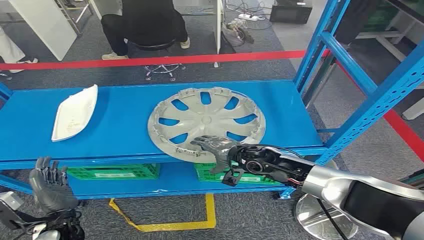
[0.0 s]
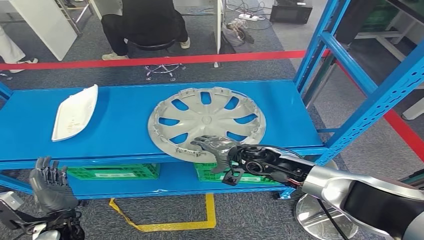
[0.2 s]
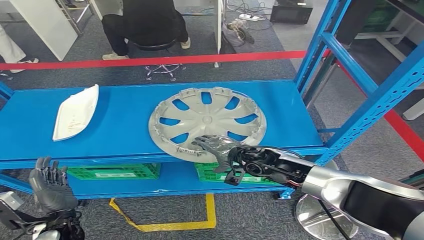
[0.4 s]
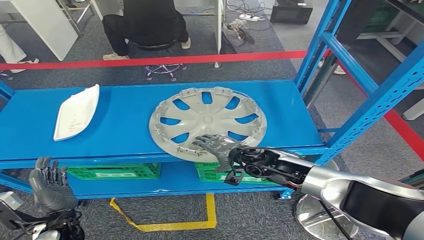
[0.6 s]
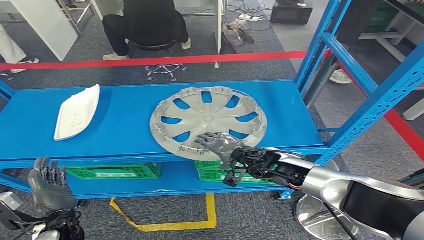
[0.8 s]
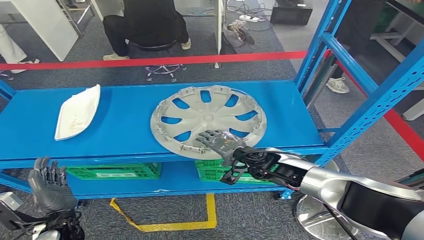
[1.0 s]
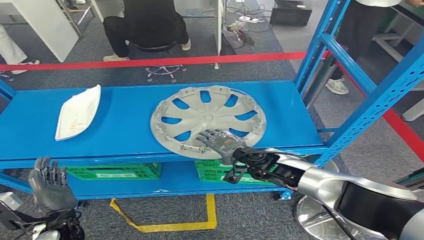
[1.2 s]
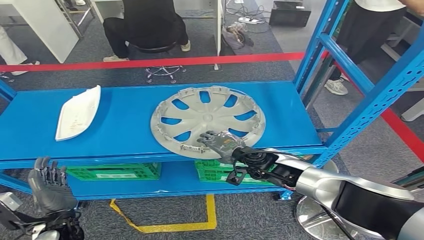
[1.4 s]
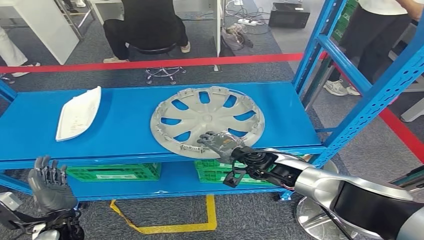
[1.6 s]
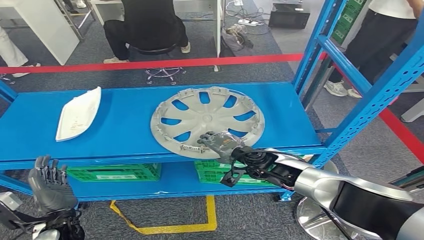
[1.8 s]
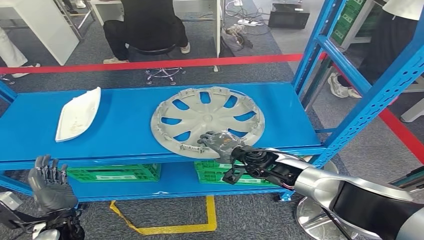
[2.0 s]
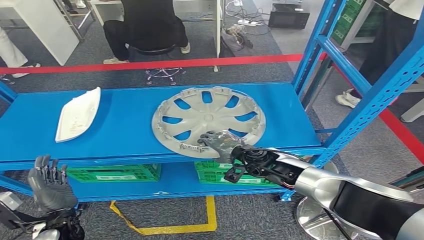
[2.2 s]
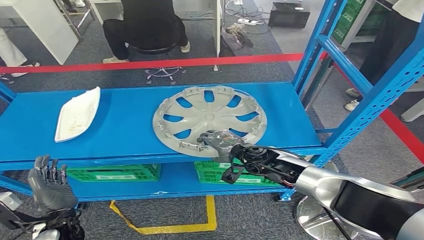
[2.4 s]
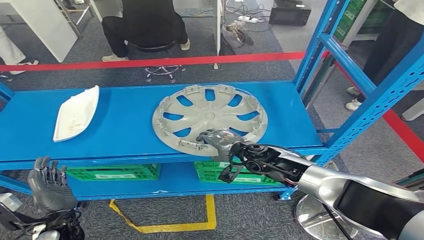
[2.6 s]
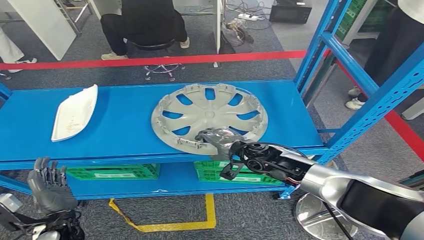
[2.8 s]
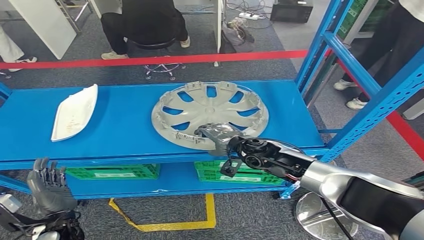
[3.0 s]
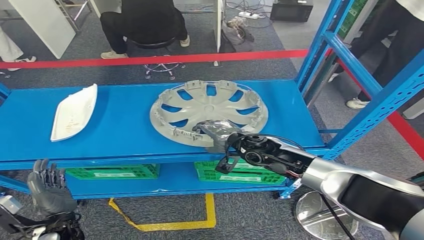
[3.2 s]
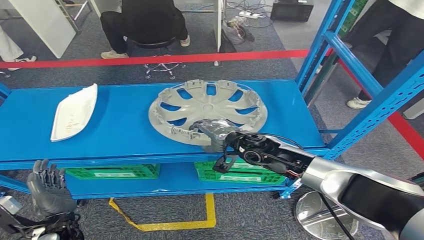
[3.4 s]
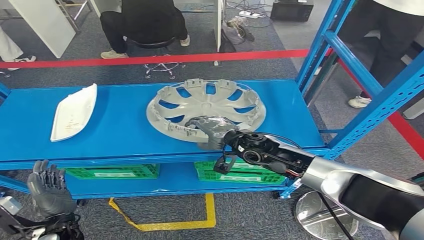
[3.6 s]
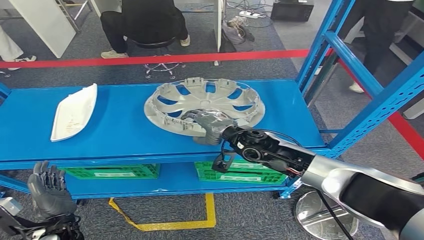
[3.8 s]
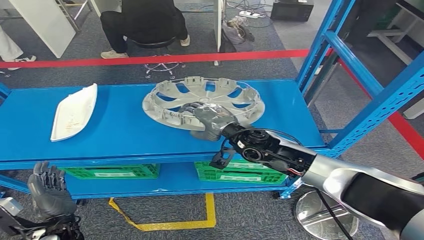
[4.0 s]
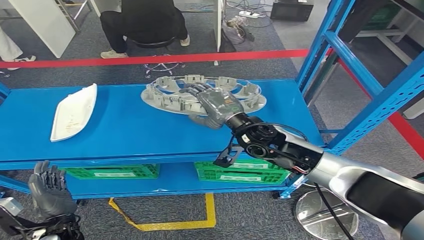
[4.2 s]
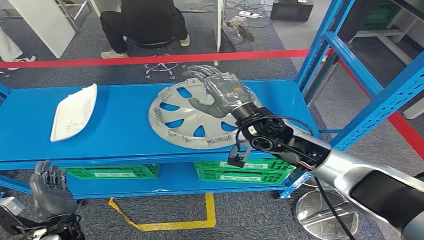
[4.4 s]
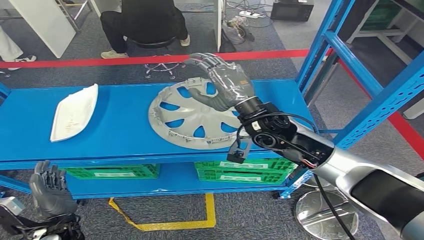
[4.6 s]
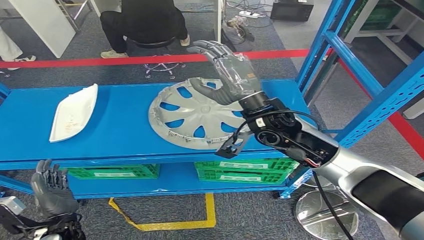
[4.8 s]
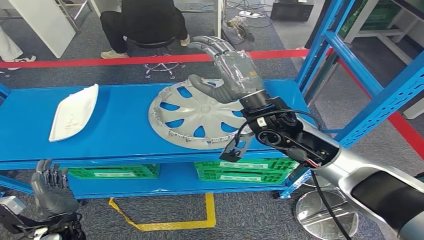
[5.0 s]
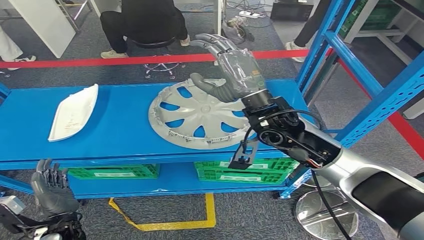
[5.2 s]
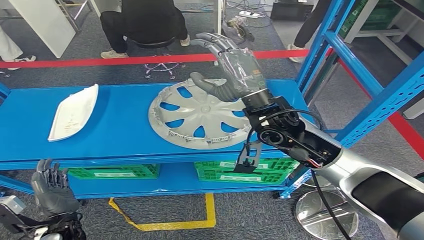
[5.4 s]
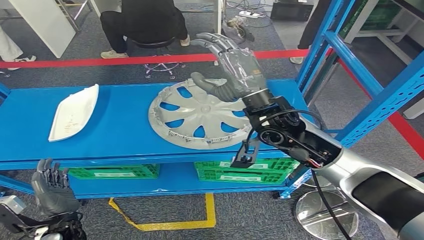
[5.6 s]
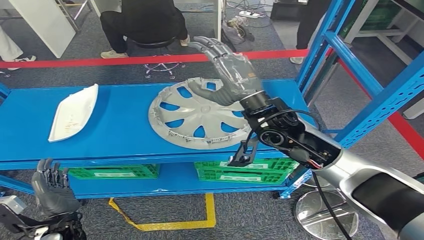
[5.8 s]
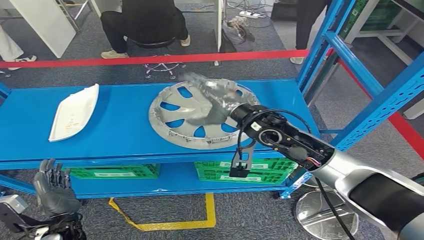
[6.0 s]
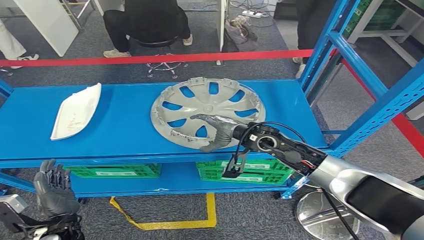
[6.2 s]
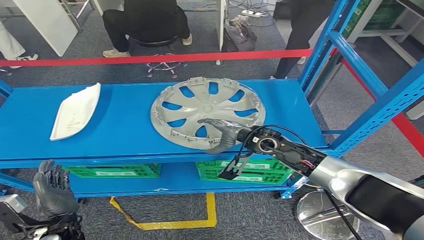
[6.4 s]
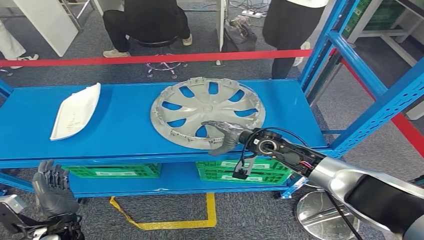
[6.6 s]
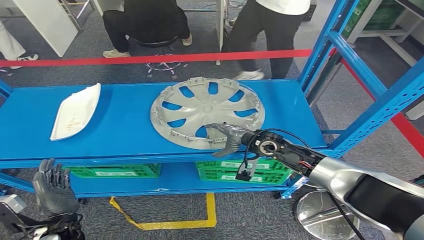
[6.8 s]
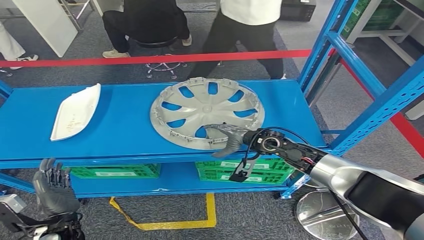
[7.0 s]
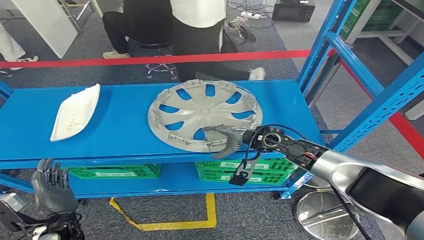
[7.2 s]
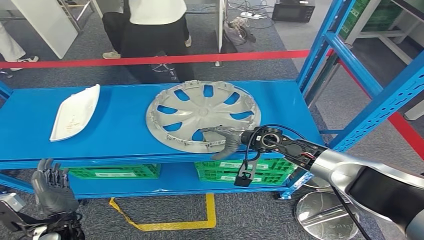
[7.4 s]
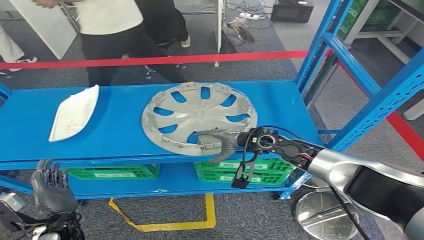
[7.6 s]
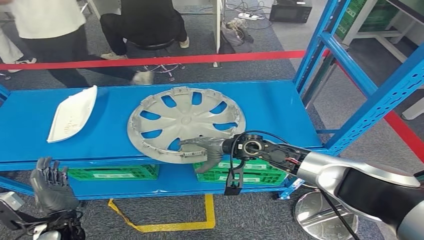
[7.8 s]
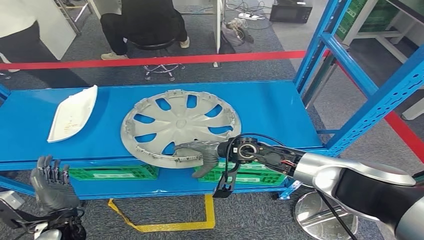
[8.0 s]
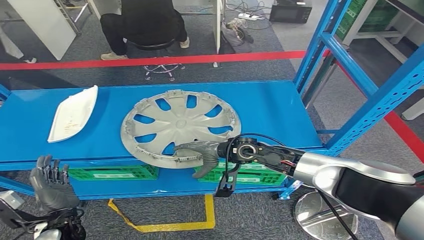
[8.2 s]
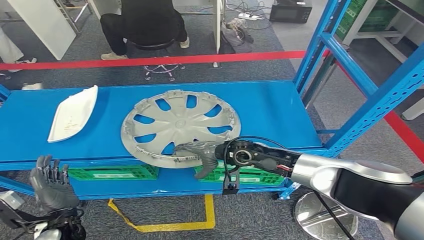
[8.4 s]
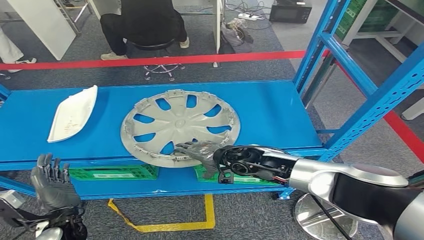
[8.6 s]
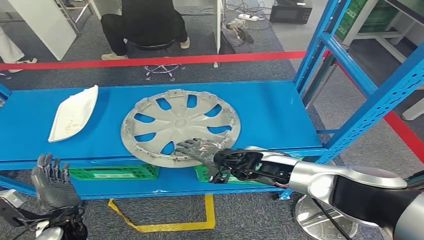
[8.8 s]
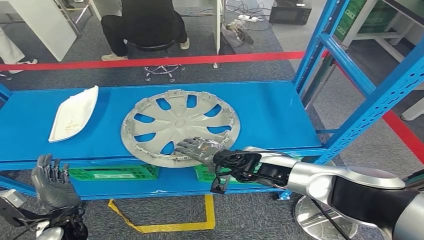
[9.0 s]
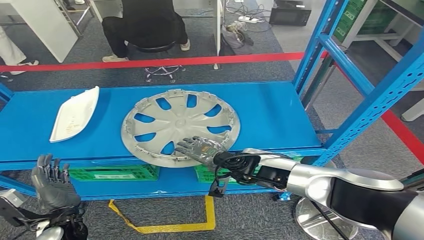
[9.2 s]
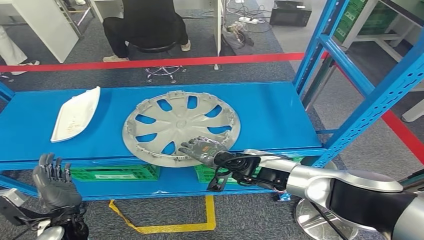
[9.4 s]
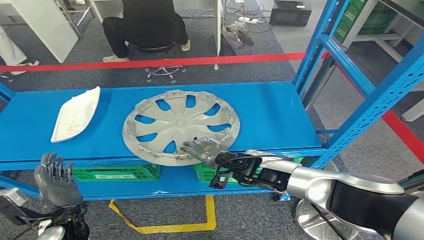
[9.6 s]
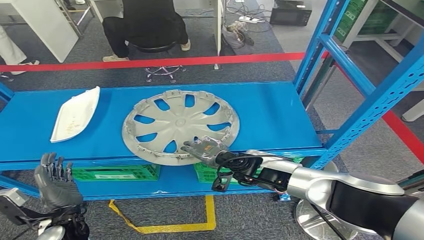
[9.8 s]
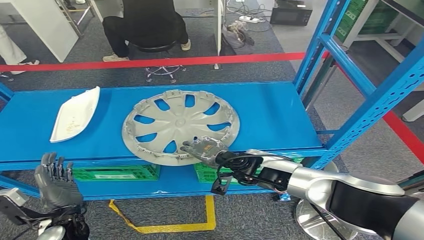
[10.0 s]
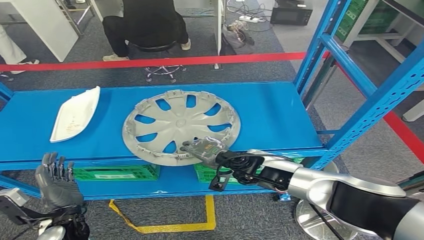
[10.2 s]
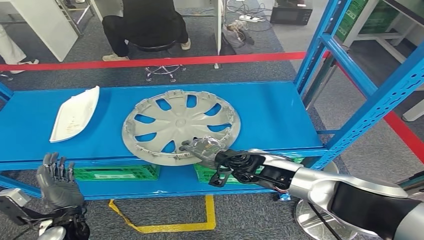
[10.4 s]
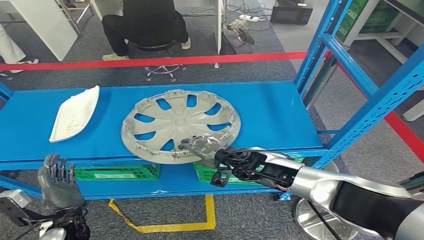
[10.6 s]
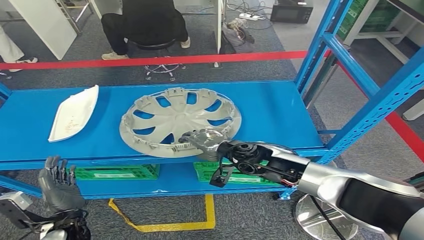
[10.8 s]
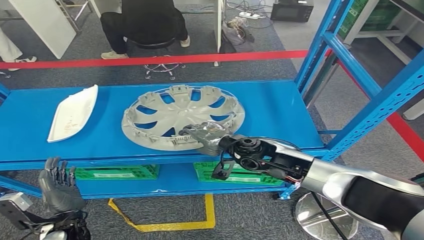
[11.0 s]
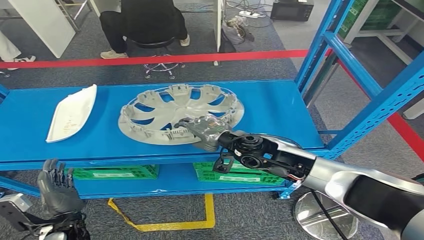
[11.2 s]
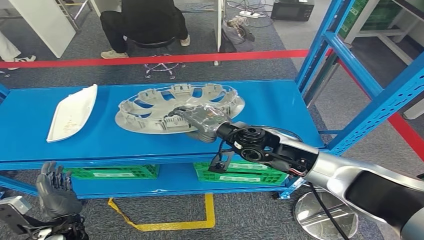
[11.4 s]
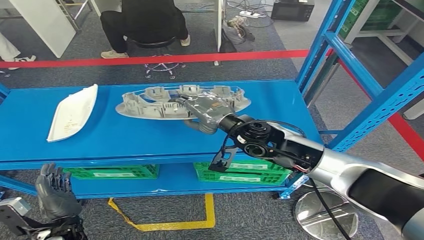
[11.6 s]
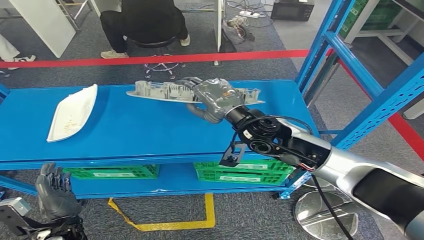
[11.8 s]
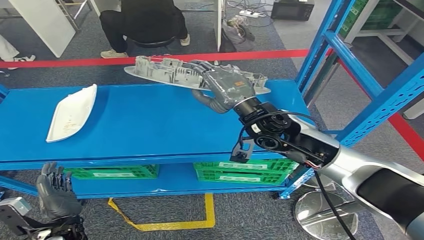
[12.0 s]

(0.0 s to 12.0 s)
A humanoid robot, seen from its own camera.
3.0 s - 4.4 s: The right hand is displaced upward by about 10 cm.
9.0 s - 10.4 s: There are only small adjustments of the hands.

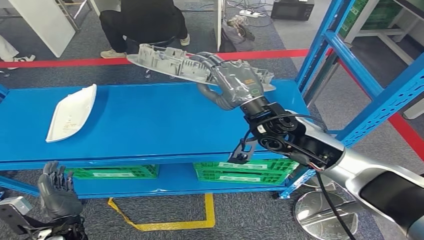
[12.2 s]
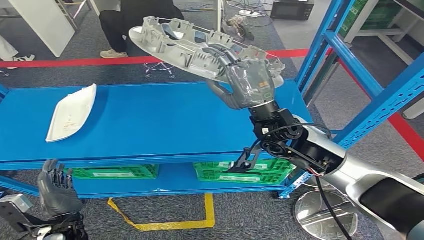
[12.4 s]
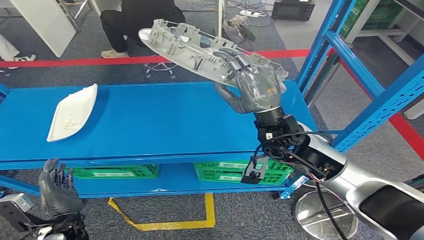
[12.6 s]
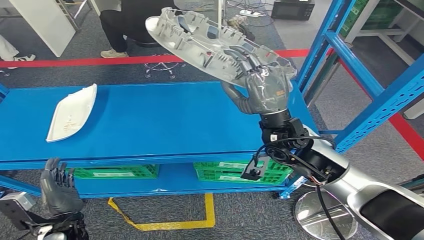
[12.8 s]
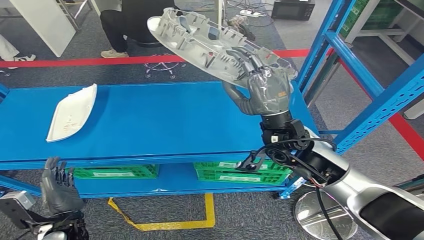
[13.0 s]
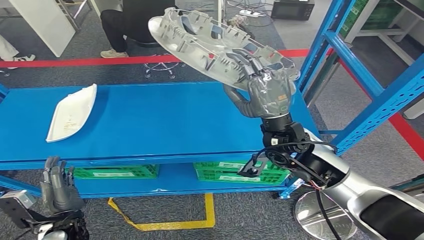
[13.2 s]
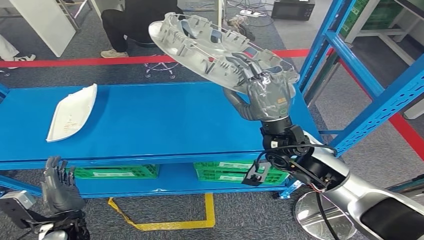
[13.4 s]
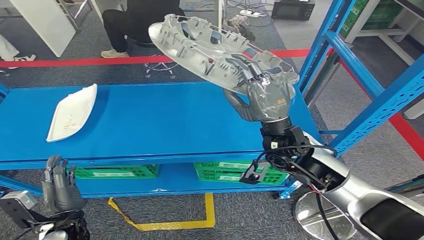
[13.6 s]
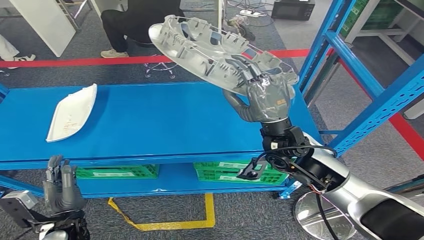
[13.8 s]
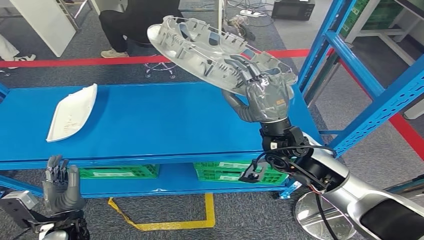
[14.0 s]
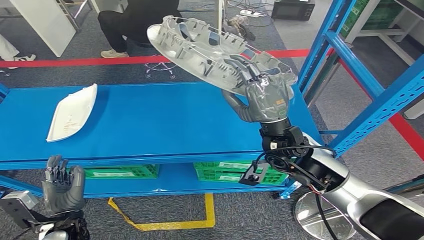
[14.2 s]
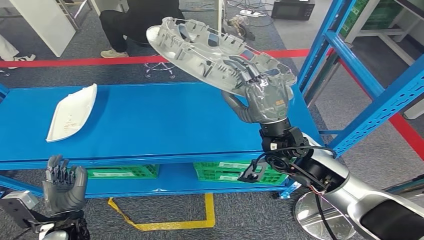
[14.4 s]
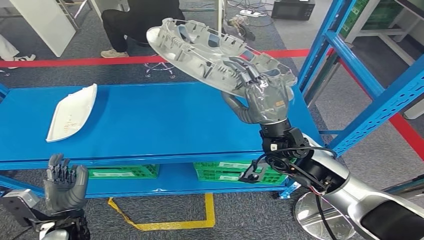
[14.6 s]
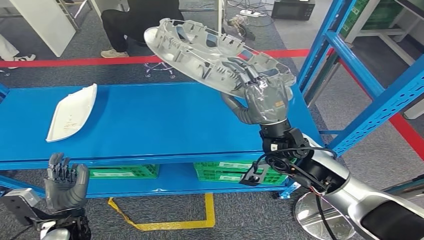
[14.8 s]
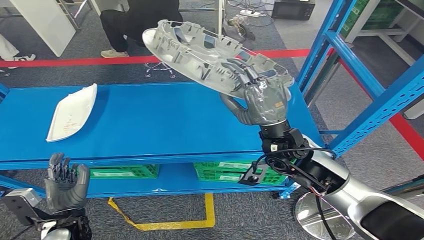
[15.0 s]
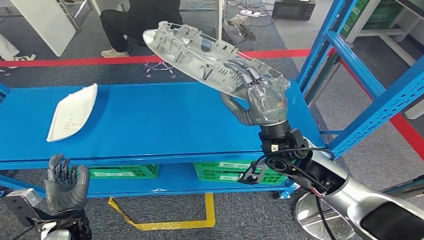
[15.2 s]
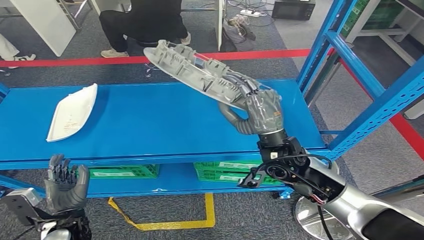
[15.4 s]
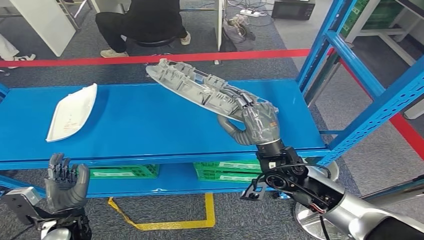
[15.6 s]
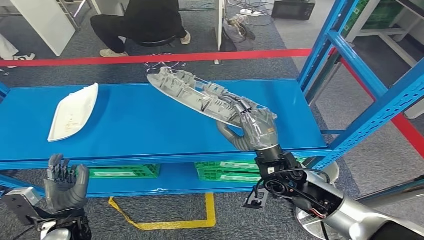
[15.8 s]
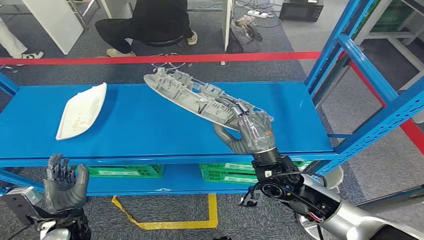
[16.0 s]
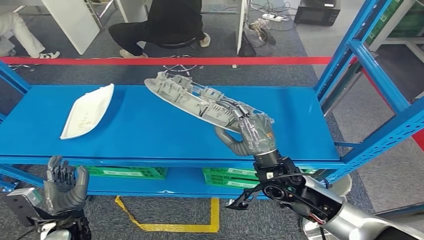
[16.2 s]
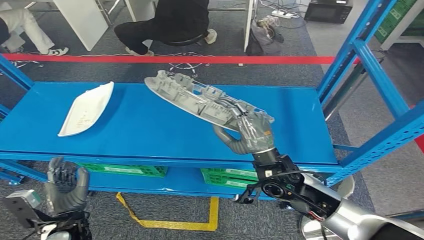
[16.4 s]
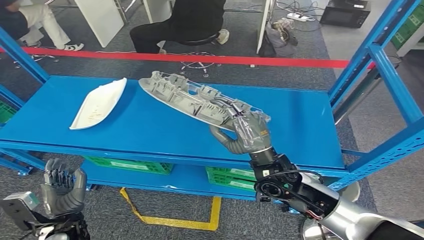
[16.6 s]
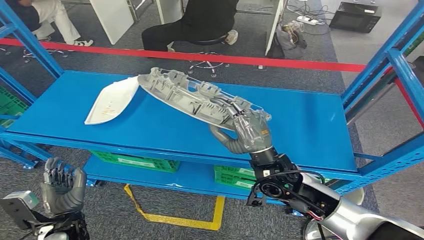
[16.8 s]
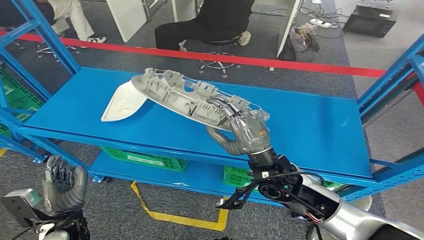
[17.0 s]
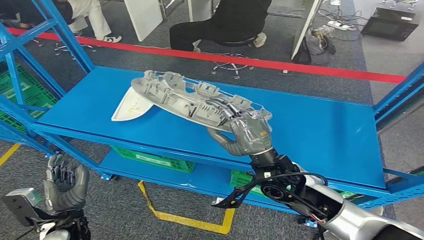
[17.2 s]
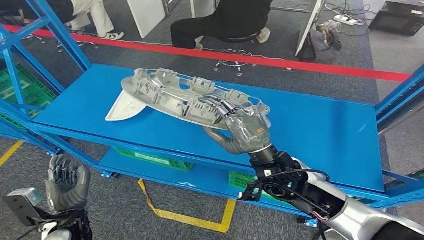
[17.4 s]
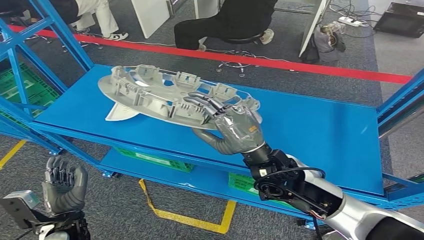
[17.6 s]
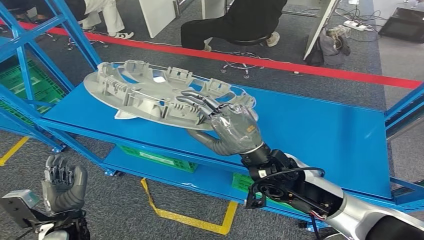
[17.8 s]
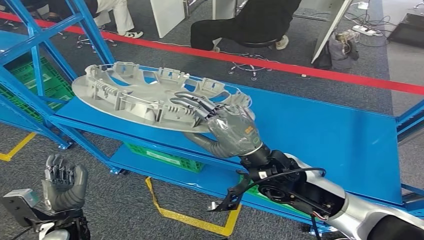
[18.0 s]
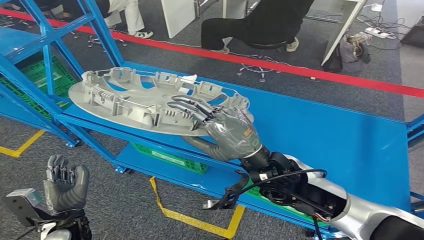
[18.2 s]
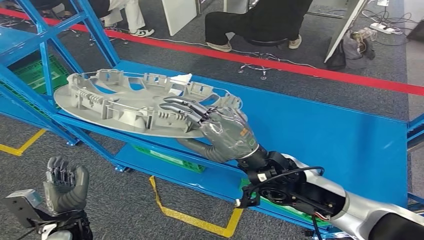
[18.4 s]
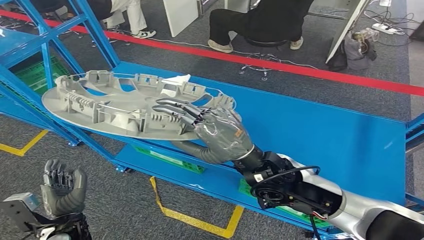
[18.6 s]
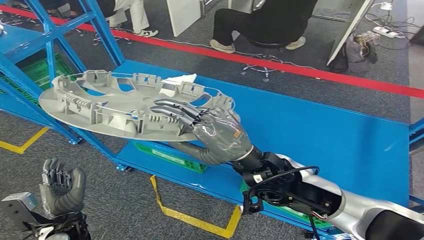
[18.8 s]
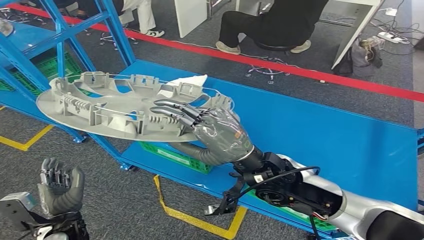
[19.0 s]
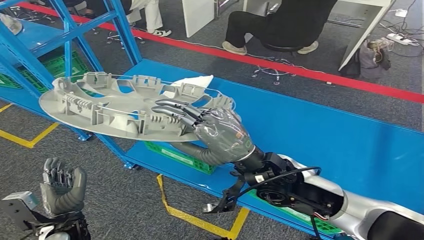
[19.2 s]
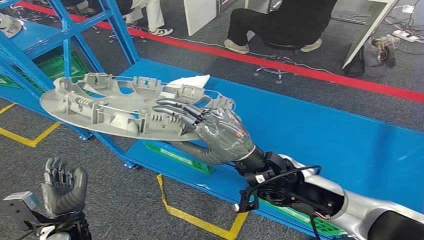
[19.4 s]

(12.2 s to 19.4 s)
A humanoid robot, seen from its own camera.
13.6 s - 15.0 s: Both hands stay put.
